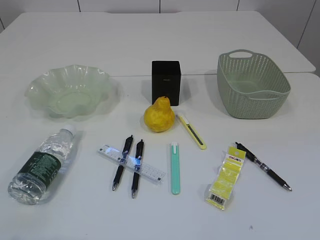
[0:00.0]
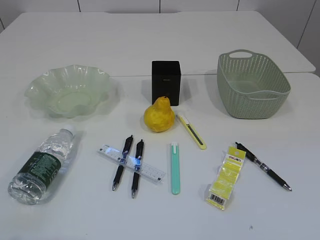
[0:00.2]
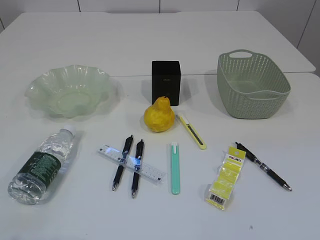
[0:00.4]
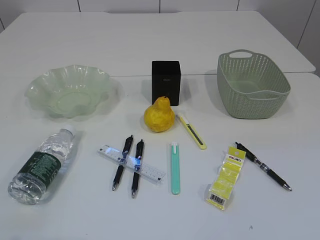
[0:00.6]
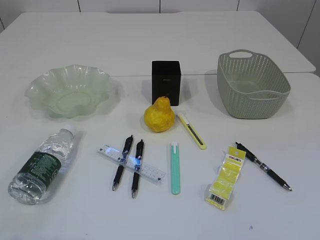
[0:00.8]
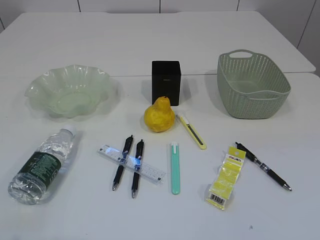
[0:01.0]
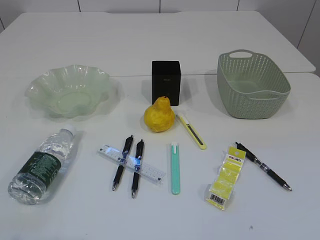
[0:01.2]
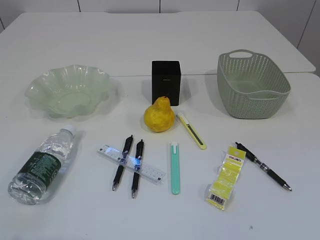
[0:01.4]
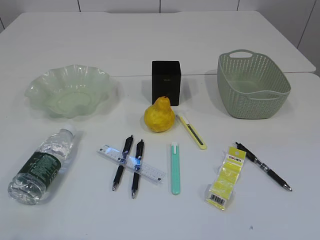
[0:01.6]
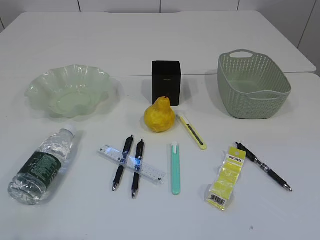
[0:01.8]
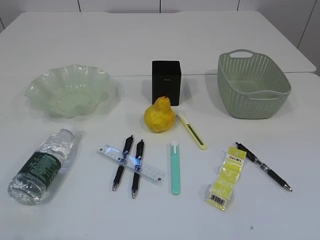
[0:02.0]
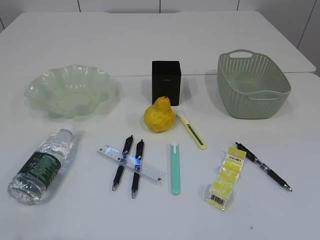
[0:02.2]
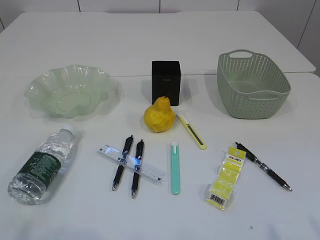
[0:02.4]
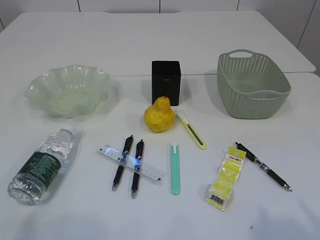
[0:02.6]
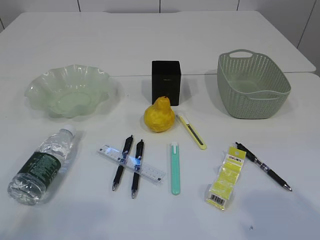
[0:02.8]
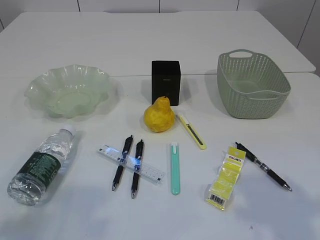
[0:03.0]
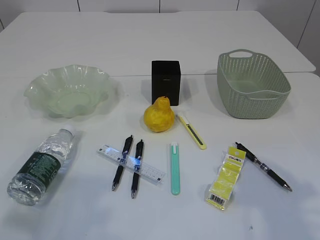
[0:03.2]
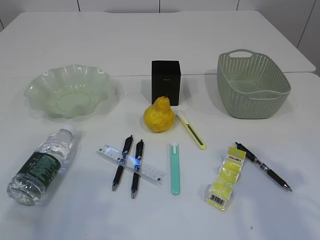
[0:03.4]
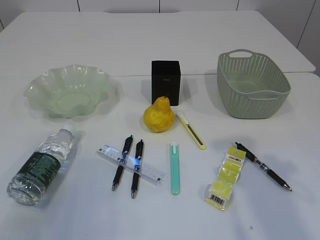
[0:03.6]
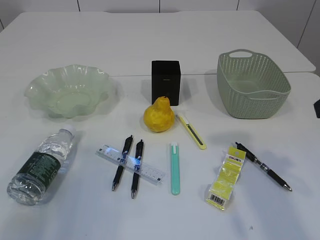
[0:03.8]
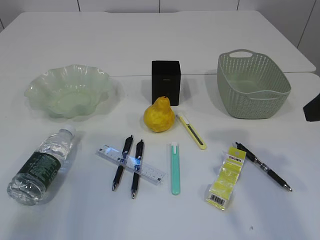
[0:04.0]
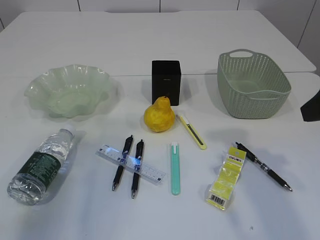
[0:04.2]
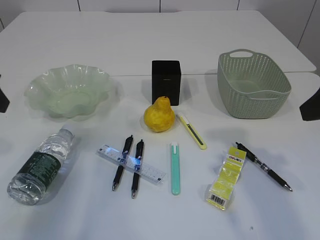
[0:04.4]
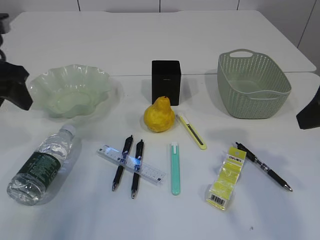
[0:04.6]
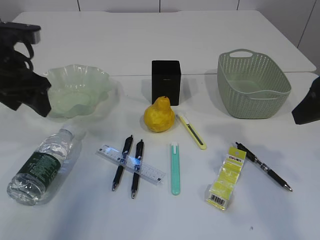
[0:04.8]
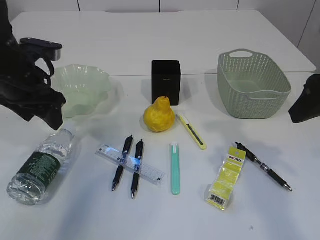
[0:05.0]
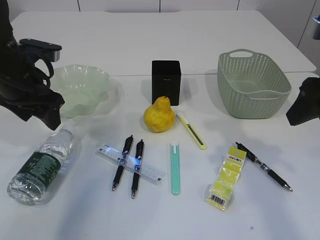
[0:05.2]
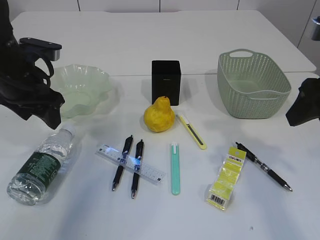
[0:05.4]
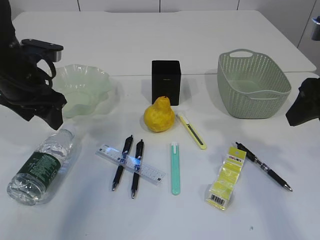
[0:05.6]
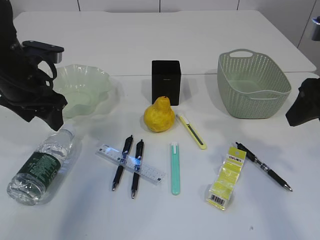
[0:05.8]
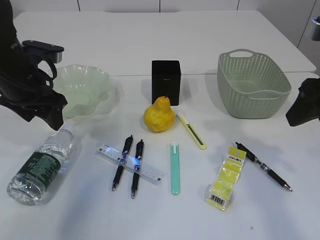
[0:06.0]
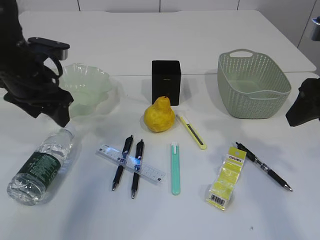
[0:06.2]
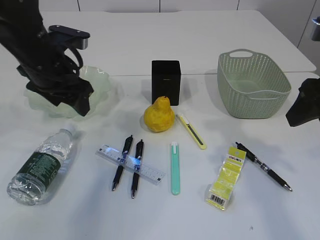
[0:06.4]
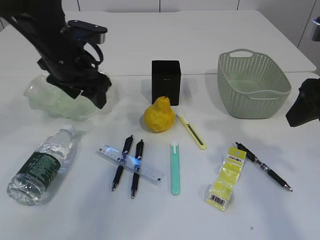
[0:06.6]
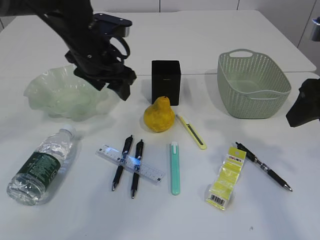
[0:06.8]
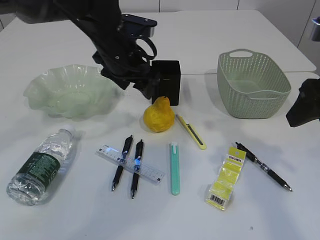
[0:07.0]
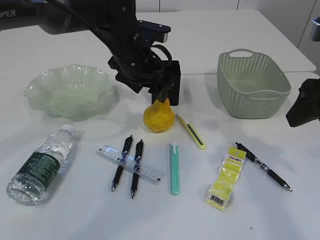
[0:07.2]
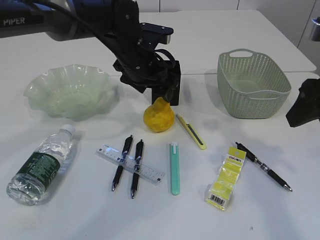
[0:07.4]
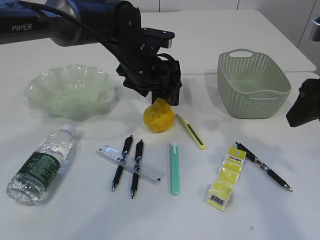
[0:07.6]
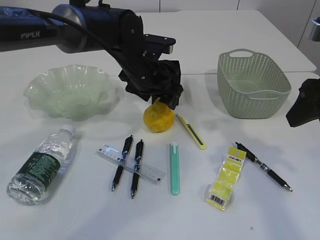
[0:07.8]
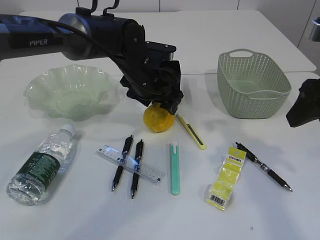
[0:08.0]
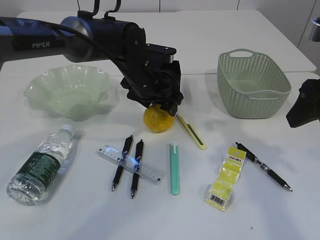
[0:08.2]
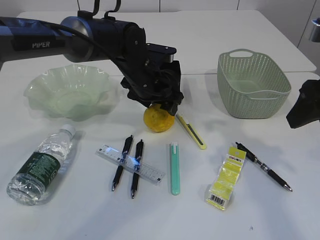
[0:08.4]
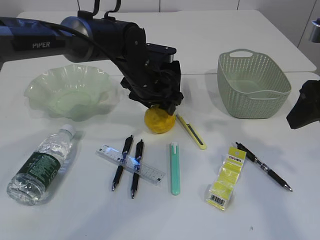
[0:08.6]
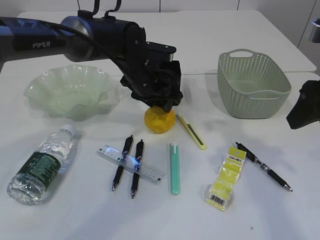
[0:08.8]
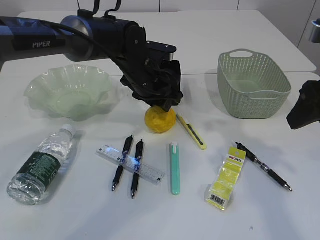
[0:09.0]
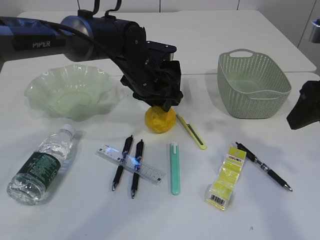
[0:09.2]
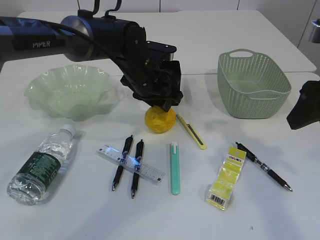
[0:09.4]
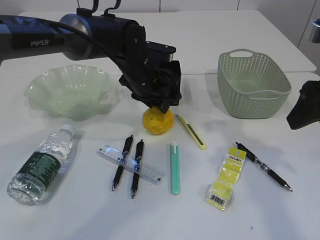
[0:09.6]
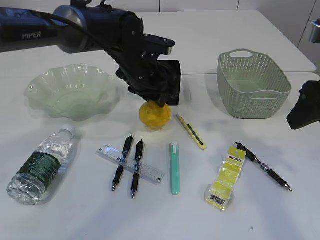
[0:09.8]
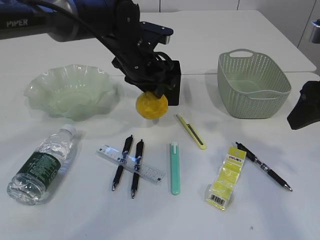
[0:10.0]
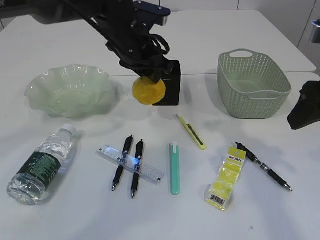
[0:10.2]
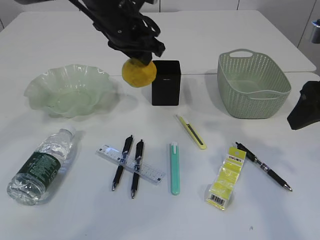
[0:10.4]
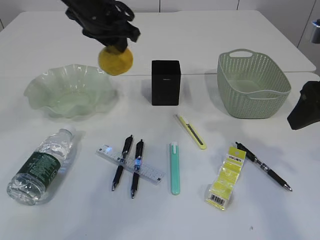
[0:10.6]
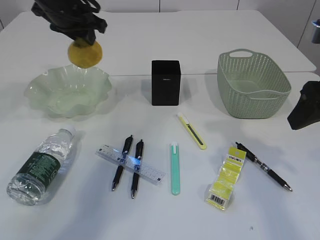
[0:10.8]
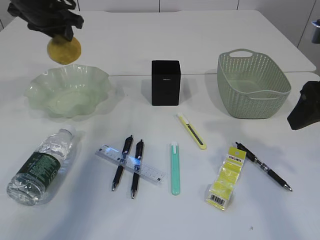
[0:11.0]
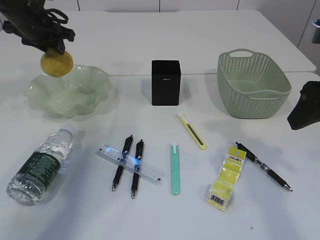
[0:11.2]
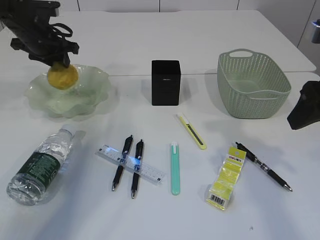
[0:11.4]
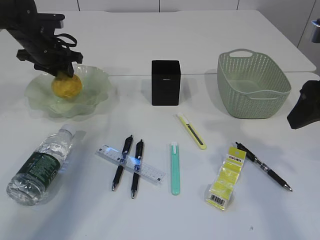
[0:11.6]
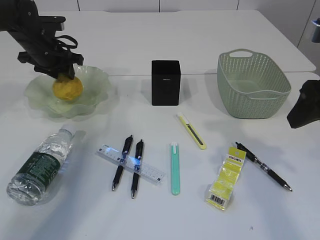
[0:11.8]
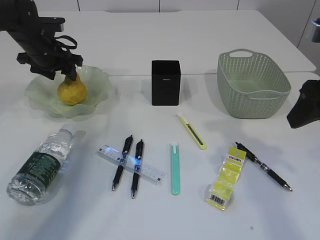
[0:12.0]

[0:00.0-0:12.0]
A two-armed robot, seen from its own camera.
0:01.6 to 0:03.0: The left gripper shifts about 10 cm forward.
0:03.0 to 0:04.4: The left gripper travels forward by roughly 20 cm, while the right gripper moves forward, roughly 10 cm.
0:04.4 to 0:06.0: The left gripper travels forward, downward and to the right by roughly 10 cm, and opens up.
0:06.0 to 0:07.6: The left gripper moves to the right, approximately 20 cm.
0:07.6 to 0:09.0: The left gripper closes.
0:09.0 to 0:10.4: The left gripper shifts about 10 cm upward.
0:10.4 to 0:12.0: The left gripper travels to the left, forward and downward by approximately 20 cm, and opens up.

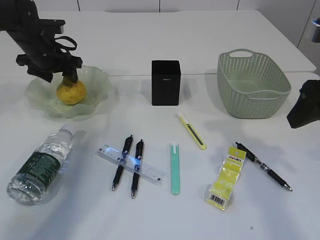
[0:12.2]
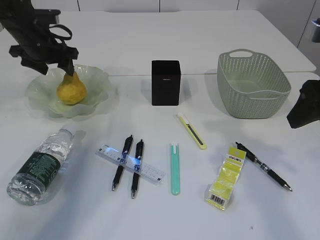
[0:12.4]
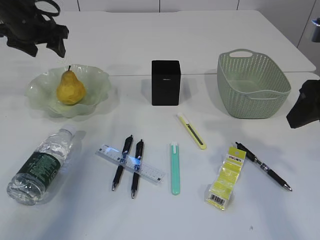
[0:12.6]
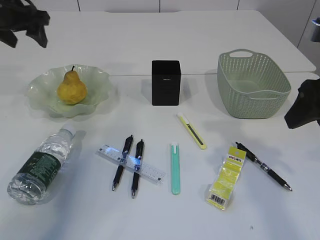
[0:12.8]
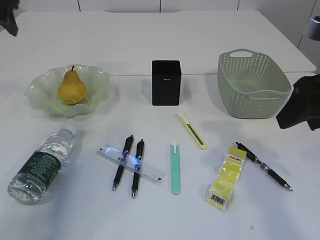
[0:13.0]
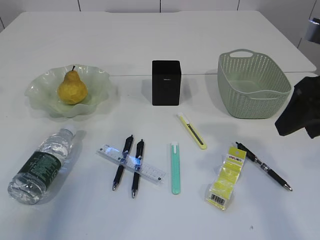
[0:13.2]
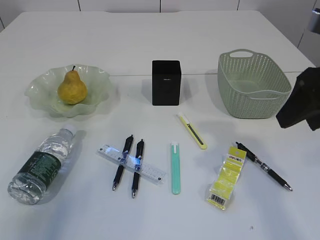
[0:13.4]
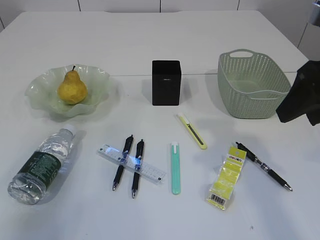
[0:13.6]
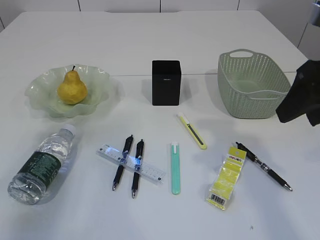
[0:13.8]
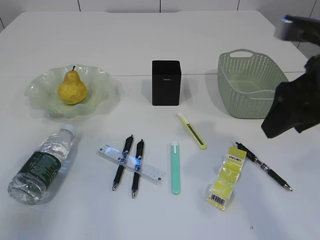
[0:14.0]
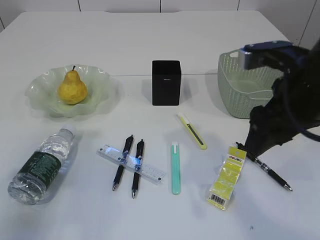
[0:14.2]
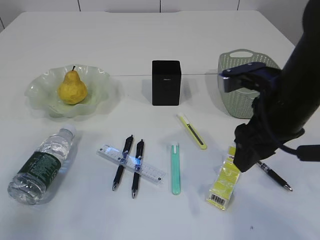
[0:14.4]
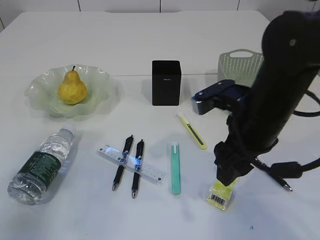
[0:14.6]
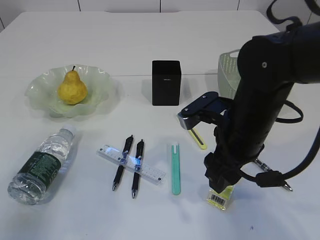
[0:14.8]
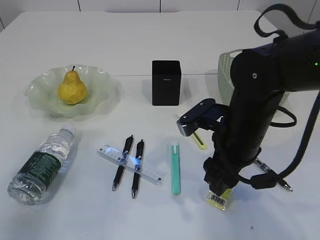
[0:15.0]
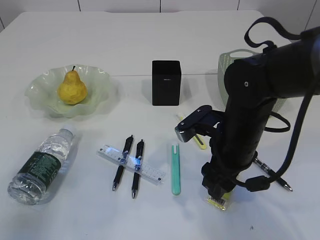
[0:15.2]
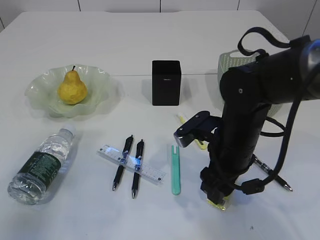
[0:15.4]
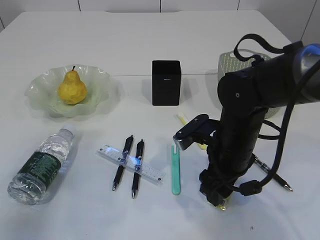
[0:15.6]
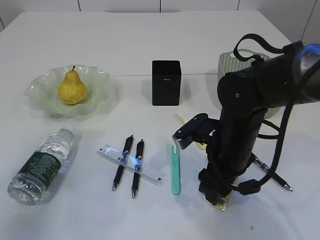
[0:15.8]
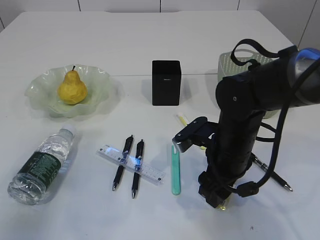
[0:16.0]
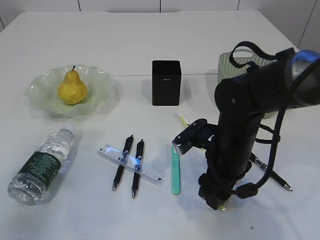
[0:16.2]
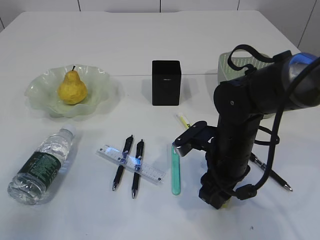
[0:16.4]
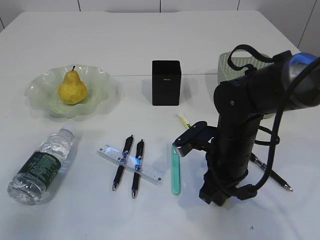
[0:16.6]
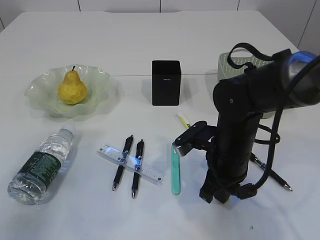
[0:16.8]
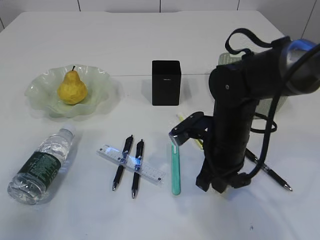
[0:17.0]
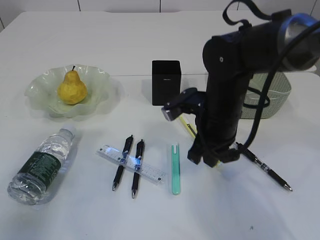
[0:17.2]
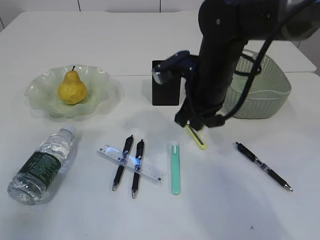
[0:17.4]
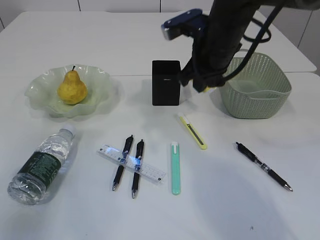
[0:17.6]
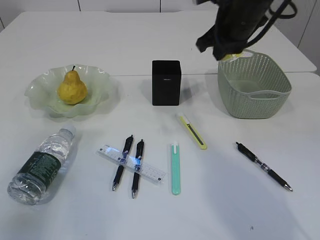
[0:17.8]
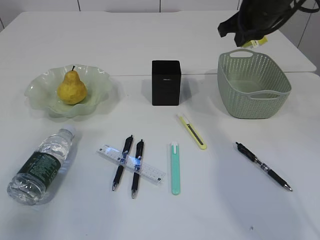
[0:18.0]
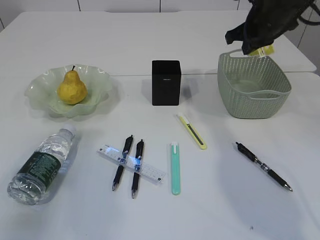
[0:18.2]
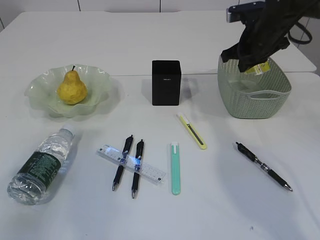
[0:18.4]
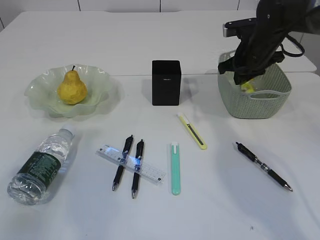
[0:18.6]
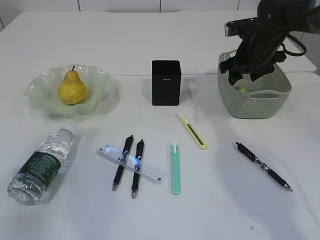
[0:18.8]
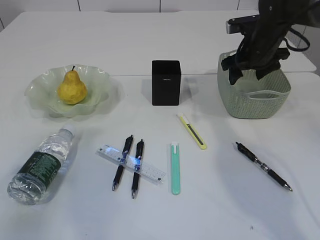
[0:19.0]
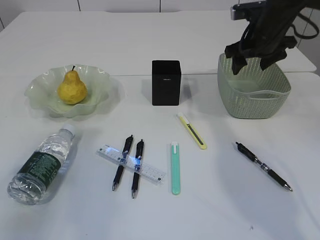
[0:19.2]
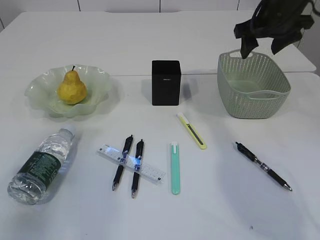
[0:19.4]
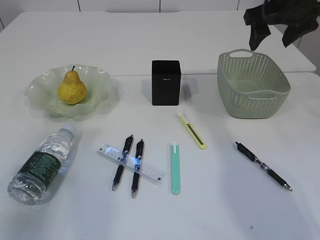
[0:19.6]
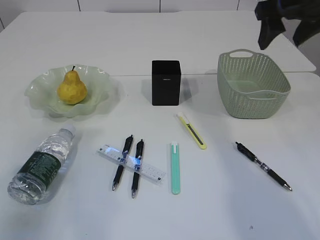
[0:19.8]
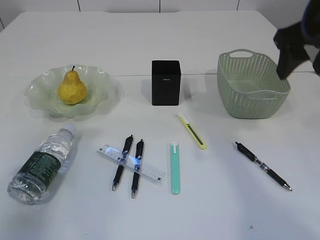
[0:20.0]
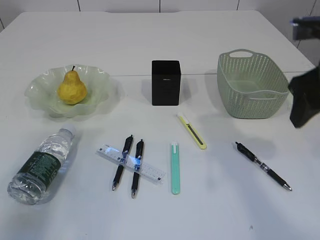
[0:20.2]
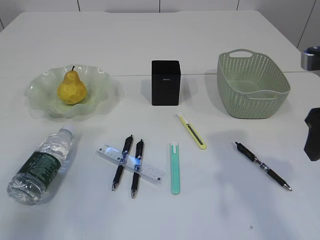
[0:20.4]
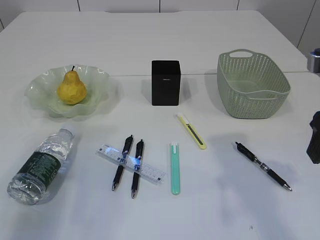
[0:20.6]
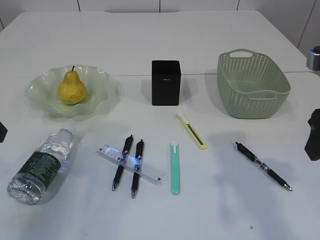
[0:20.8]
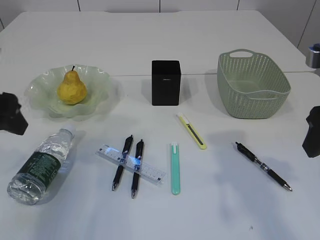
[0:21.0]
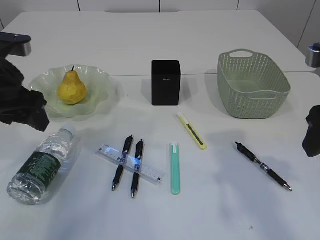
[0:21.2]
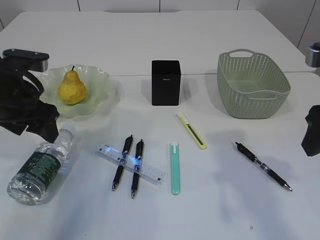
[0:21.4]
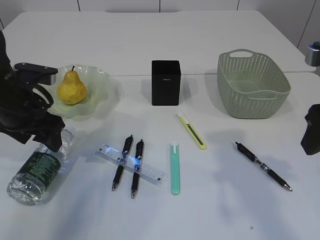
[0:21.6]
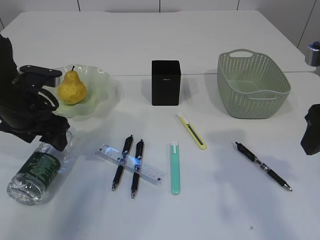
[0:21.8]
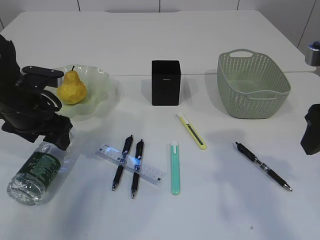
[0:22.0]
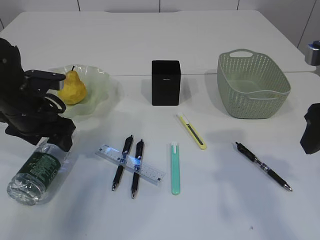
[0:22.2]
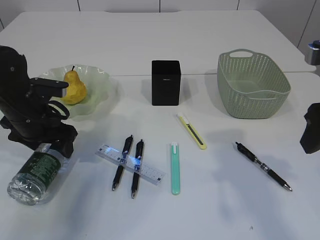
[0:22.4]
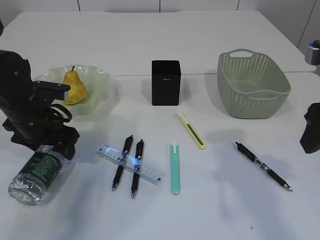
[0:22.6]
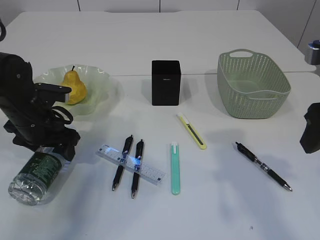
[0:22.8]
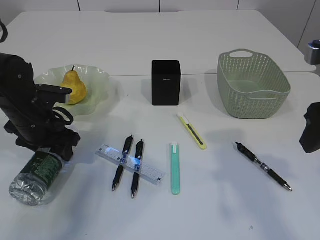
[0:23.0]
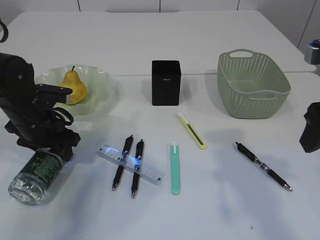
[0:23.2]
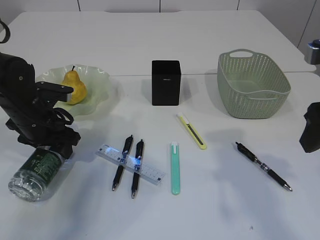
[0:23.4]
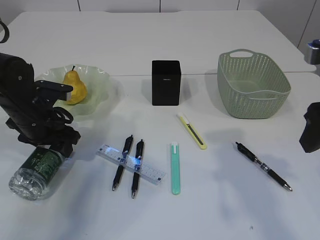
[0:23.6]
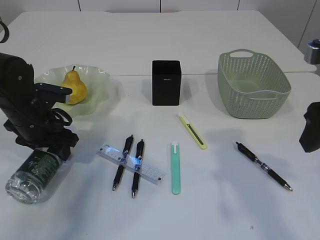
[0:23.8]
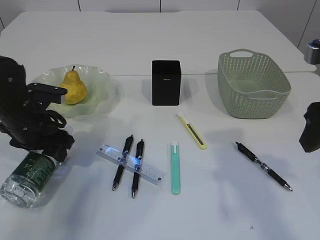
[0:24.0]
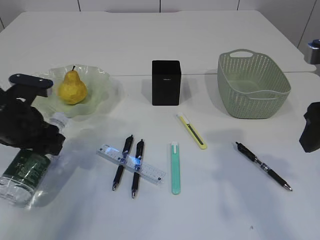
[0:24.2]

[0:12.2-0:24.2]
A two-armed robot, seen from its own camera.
Step, 0:13.0 to 0:17.6: Pick up the waste paper.
Step, 0:17.8 to 0:20.8: Place the waste paper in the basket.
0:12.2 to 0:13.8: The left gripper moves backward and upward, approximately 25 cm.
0:13.8 to 0:15.2: The left gripper goes approximately 10 cm backward. The right gripper travels downward and to the left by roughly 20 cm.
0:15.2 to 0:16.6: The right gripper closes its fingers.
0:16.6 to 0:18.2: The right gripper heads forward, upward and to the right, covering approximately 25 cm.
0:18.2 to 0:19.8: The right gripper is displaced backward and upward by about 10 cm, and opens its fingers.
0:19.8 to 0:21.2: The left gripper shifts some 10 cm to the right and forward. Meanwhile the right gripper heads backward and downward, covering approximately 15 cm.
0:21.2 to 0:22.6: The left gripper shifts some 10 cm downward and forward.
0:22.6 to 0:24.2: The left gripper closes its fingers.
